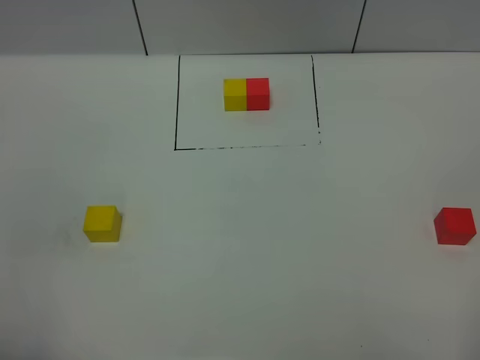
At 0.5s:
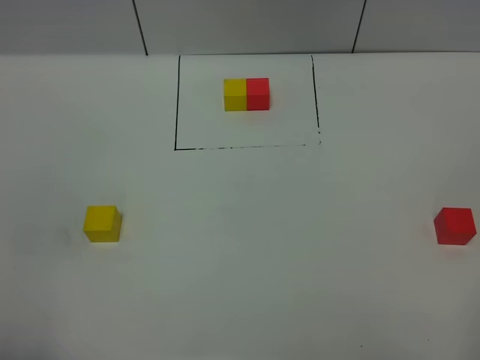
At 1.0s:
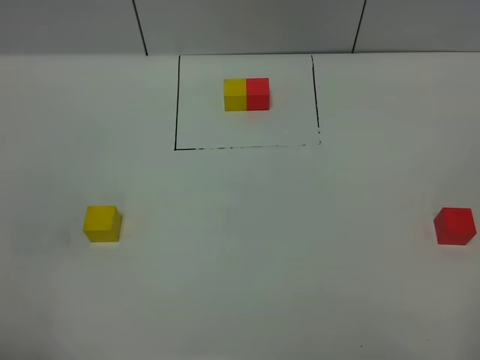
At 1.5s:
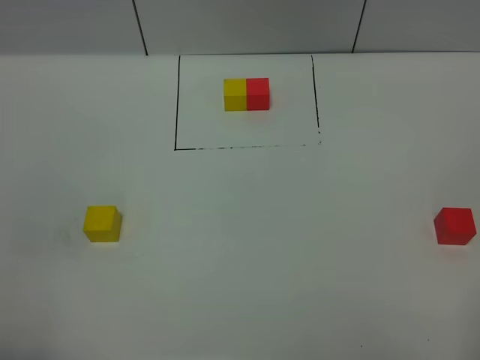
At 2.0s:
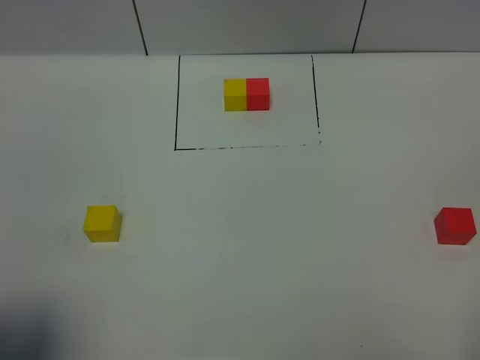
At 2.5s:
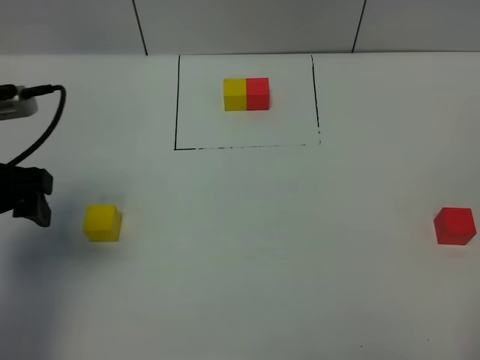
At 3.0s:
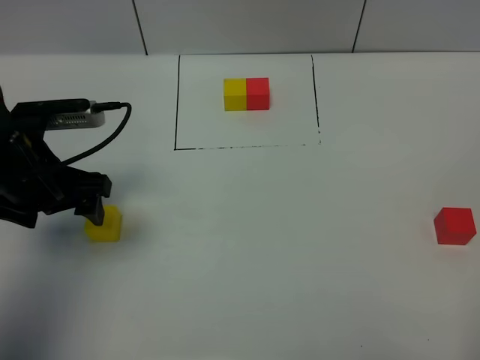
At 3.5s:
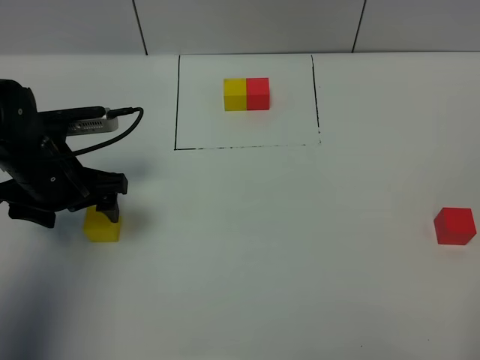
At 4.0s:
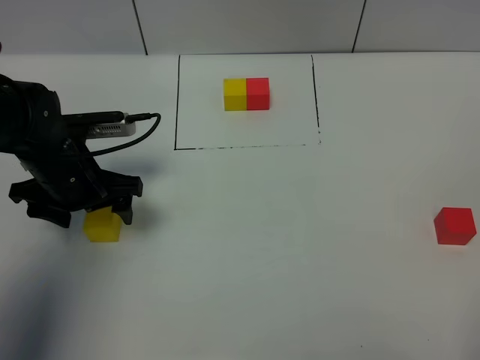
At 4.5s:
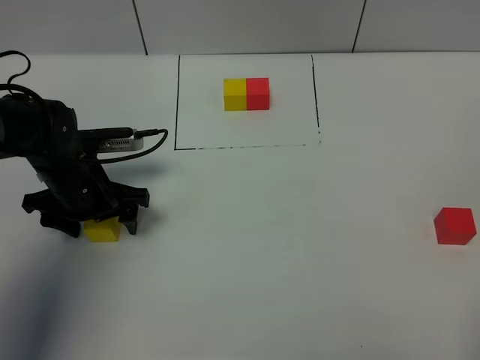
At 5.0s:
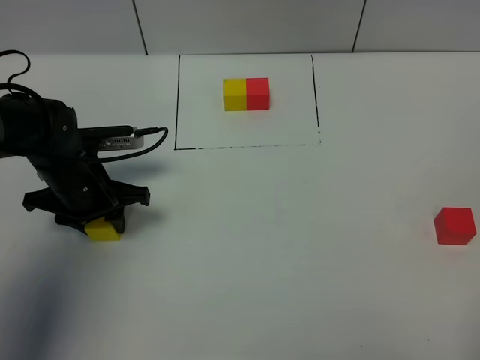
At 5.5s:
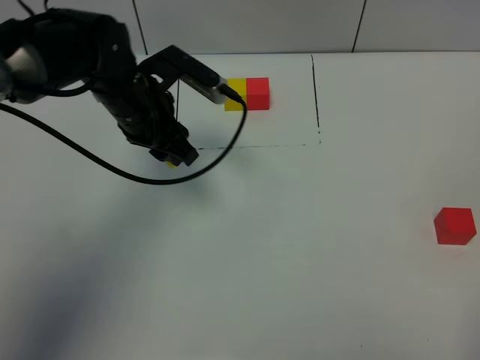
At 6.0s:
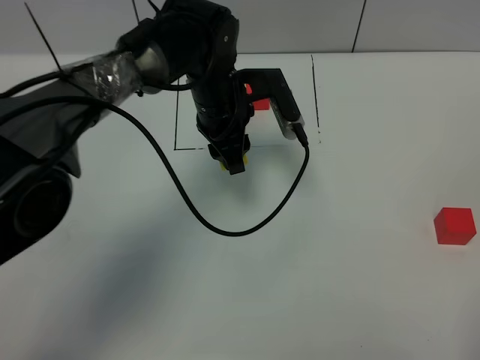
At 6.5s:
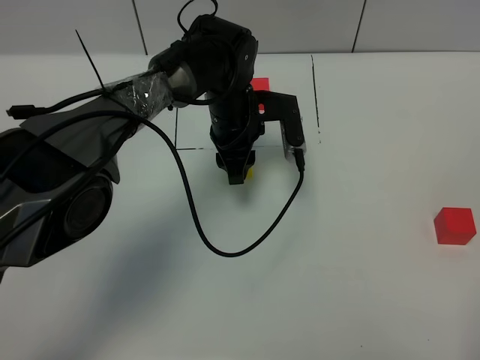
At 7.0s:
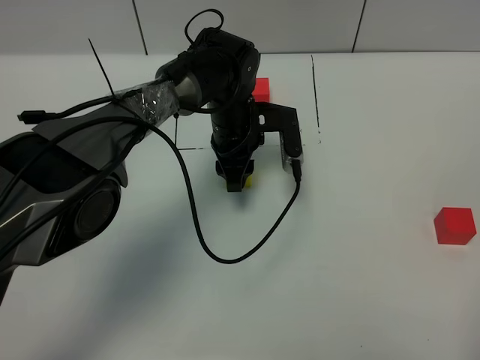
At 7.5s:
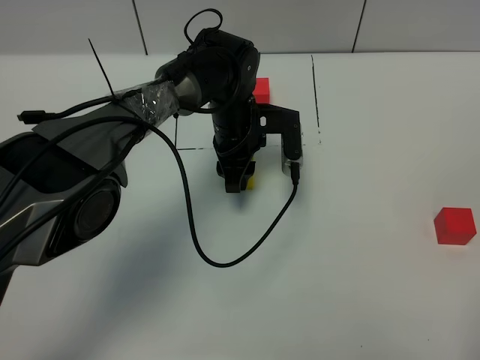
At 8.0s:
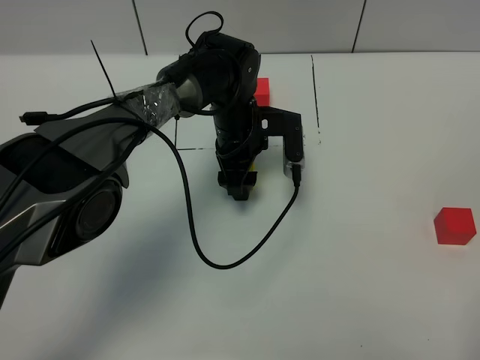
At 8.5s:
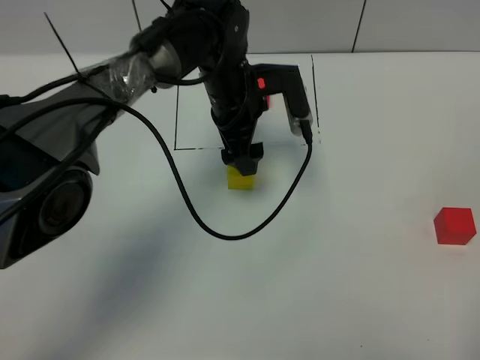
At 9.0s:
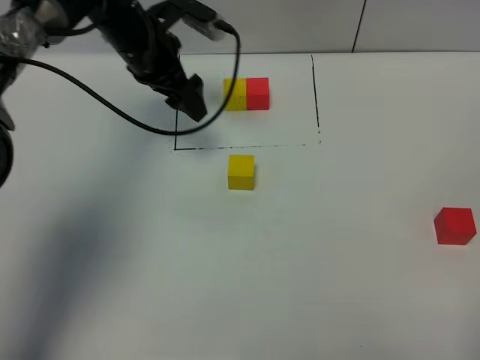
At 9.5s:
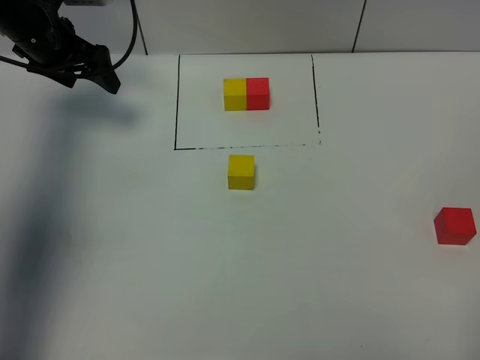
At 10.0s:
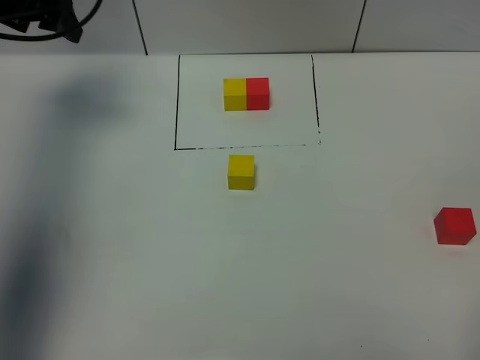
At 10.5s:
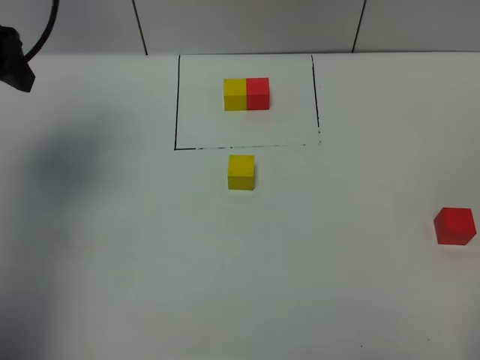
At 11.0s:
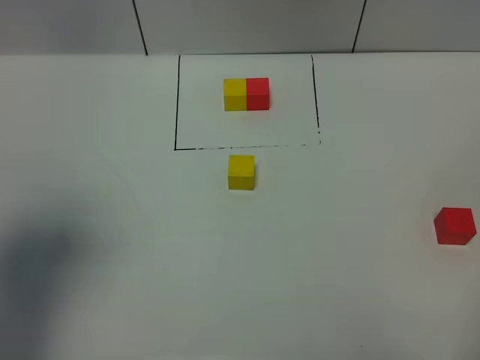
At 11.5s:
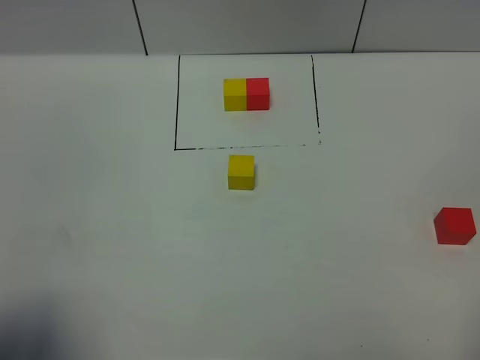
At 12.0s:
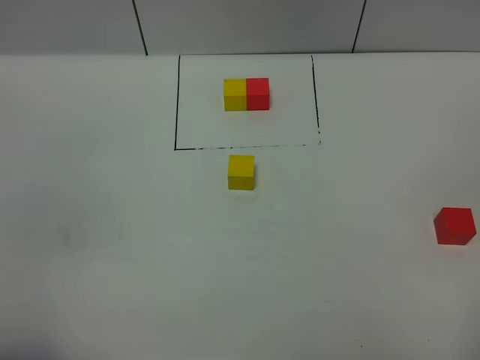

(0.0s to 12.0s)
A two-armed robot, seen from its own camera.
Task of the whole recording: According to the building block template in front, assemble the scattered blocks together.
Step, 2.5s - 8.0s: Put the yellow cube in the center of the table.
0.0s - 2.0s: The left gripper moves forward, some 5 cm.
2.0s - 4.0s: The left gripper is displaced forward and downward by approximately 30 cm.
4.0s - 6.0s: The left gripper heads to the right and forward, covering approximately 20 cm, and closes up.
6.0s - 8.0s: The left gripper heads downward, covering approximately 5 cm, and opens.
8.0s - 10.0s: The left gripper goes some 35 cm to the left and upward.
10.0s - 12.0s: The left gripper moves backward, roughly 50 cm.

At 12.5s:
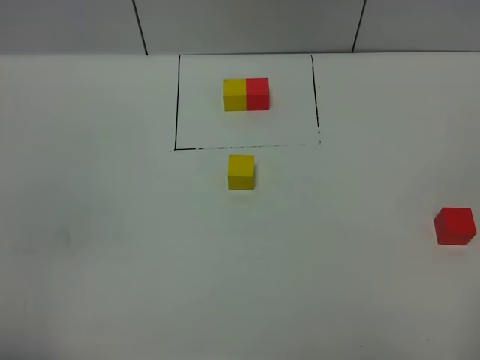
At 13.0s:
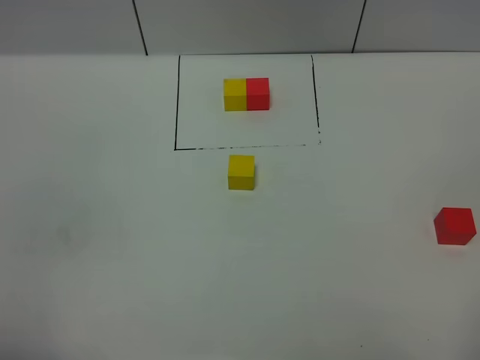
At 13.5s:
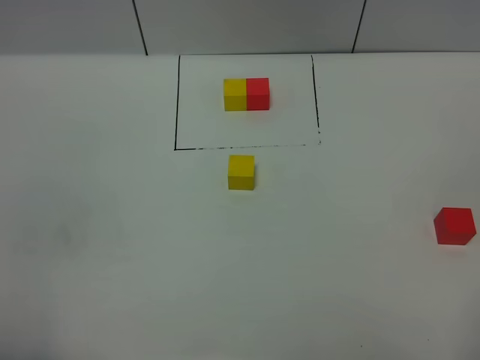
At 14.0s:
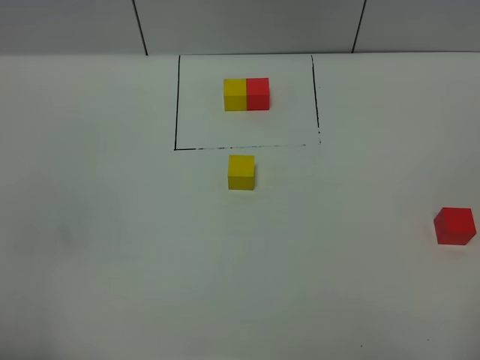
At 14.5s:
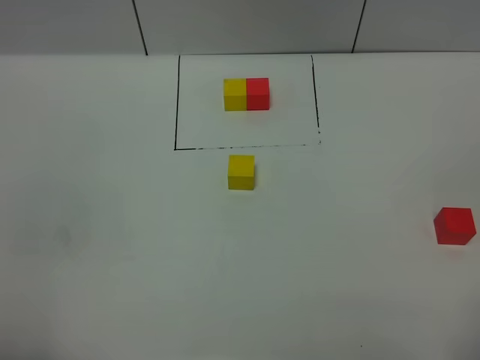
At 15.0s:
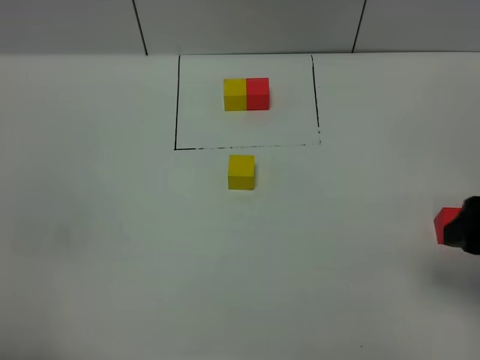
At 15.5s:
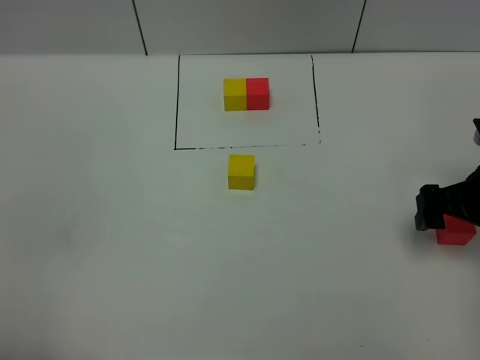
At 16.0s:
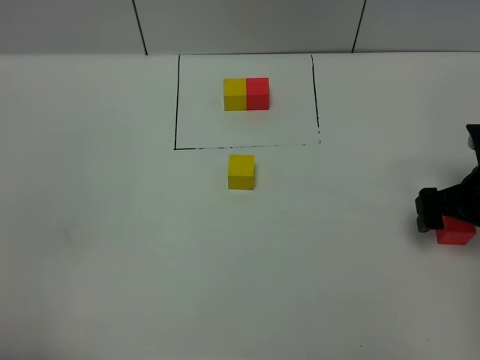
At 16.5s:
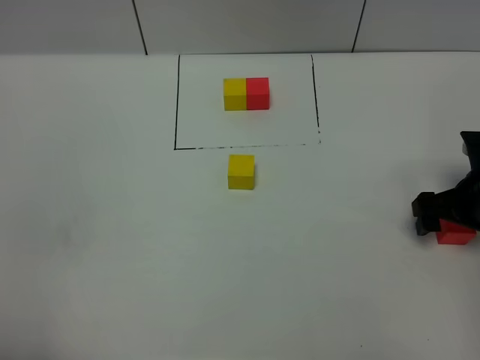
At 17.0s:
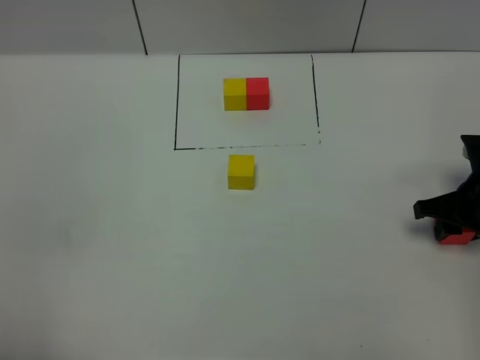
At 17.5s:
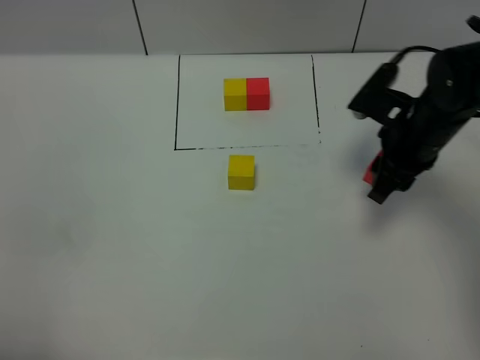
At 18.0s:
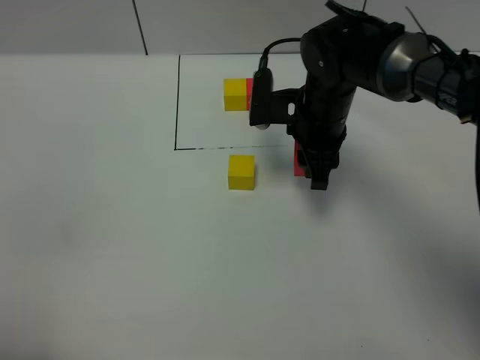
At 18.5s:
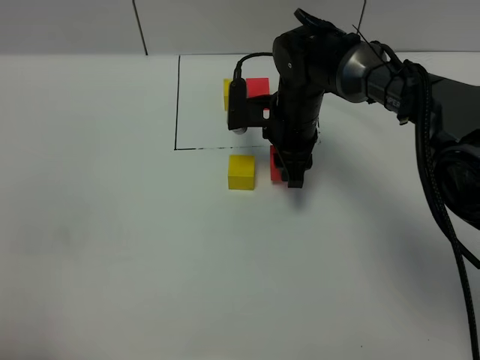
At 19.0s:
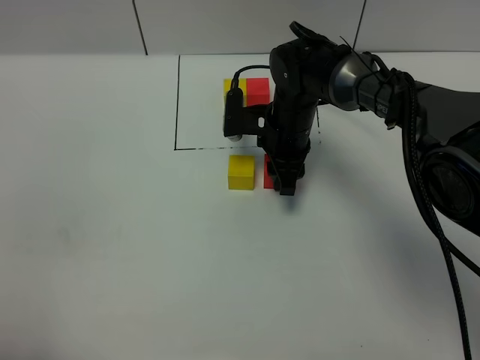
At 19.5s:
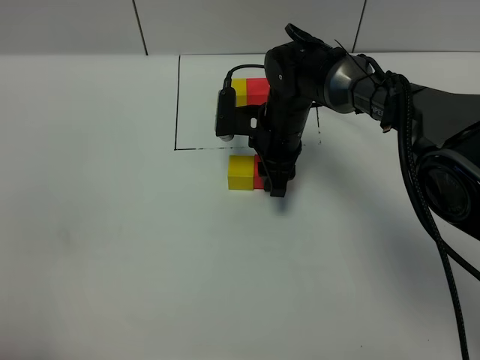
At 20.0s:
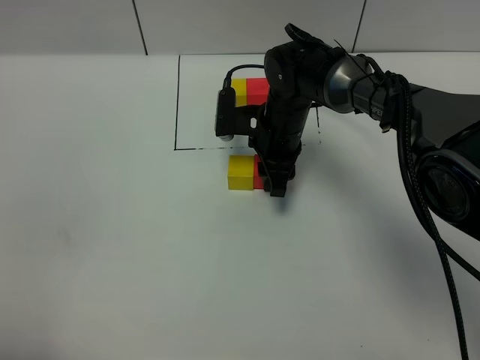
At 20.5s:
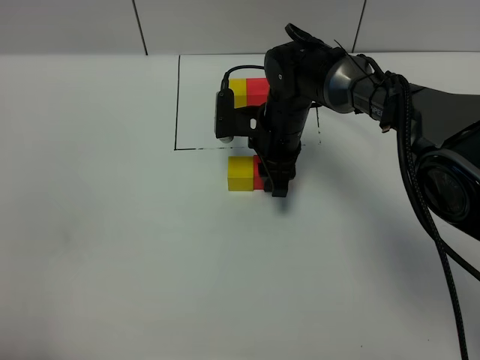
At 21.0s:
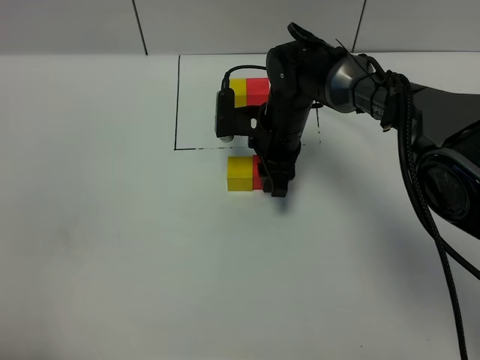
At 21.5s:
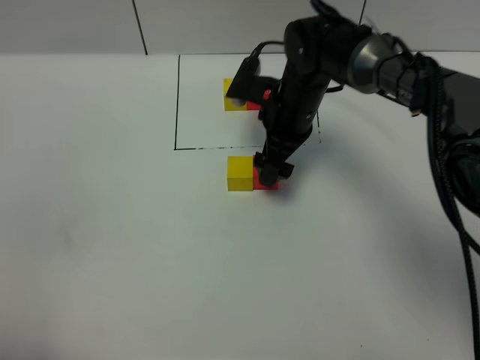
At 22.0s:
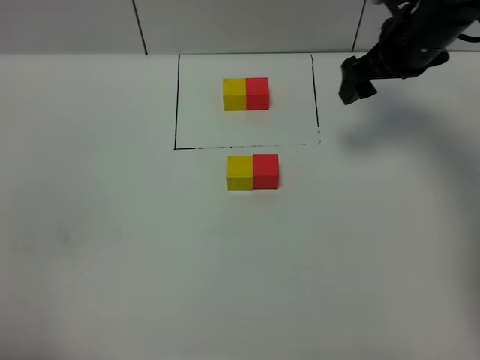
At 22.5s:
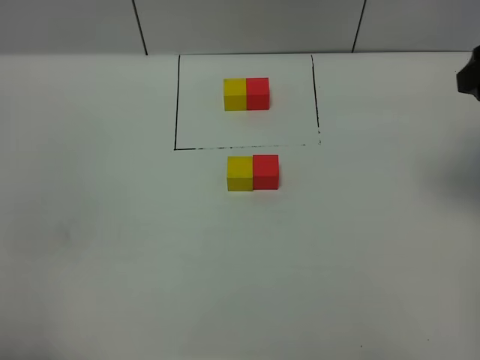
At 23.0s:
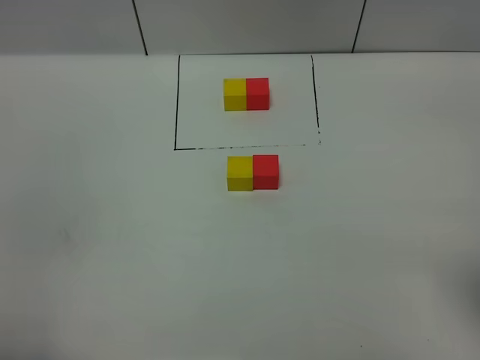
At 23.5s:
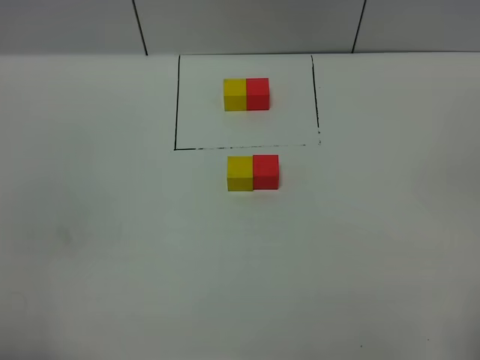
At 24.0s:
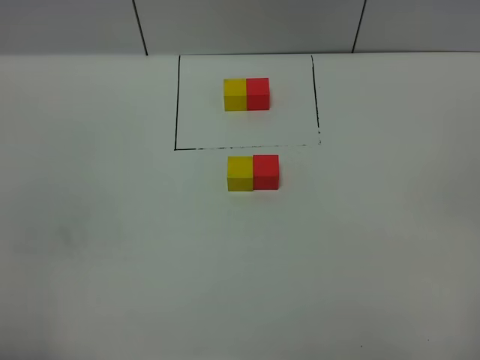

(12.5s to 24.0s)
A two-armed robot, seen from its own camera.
Task of the whole recording: According to the building block template in front, assemble the scattered blocks together.
Step, 12.5s - 21.5s: Put the red cube on the right of the yellow cube.
14.5s - 16.5s: The right gripper shifts some 30 cm forward and downward.
16.5s - 18.5s: The right gripper shifts some 25 cm to the left and forward, and closes its fingers.
18.5s - 20.0s: The grippers stay close to where they were, moving slightly.
20.0s - 22.0s: The right gripper shifts roughly 20 cm to the right and upward, and opens its fingers.
22.0s - 24.0s: The right gripper shifts approximately 40 cm backward.

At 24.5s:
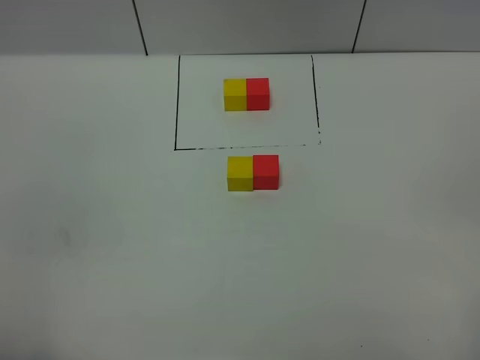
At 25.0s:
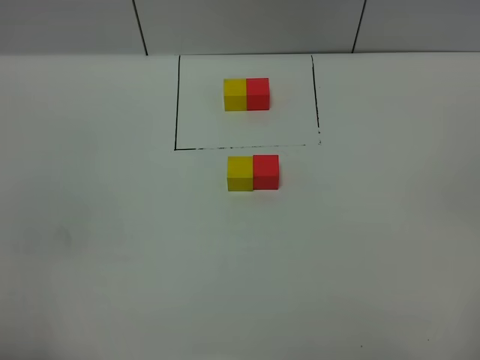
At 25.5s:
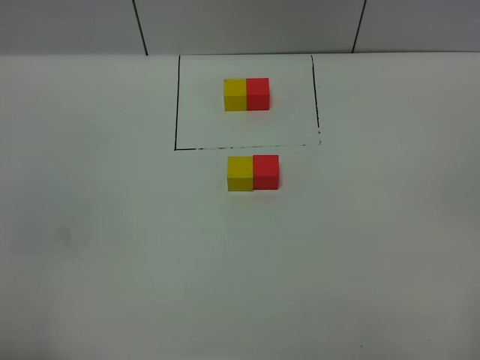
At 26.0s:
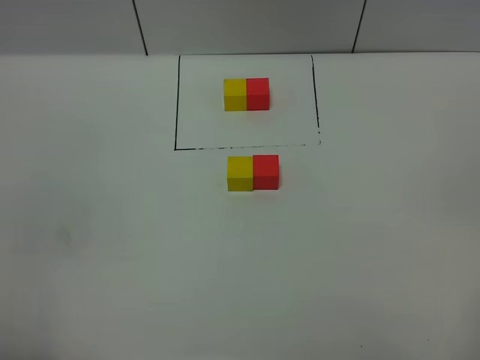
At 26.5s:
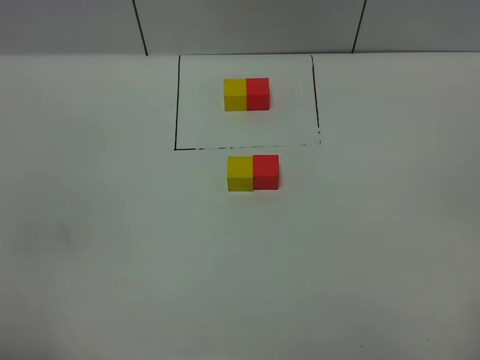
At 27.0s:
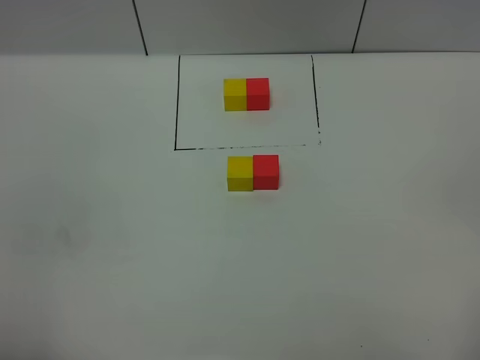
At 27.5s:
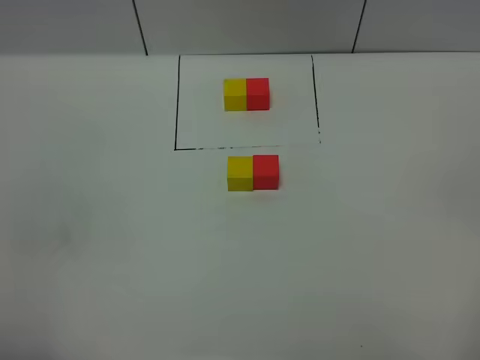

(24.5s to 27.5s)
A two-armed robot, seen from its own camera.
Task of the whole recording: According to the building block template in front, assemble the scattered blocks together.
24.5s - 26.0s: Both grippers stay put.
